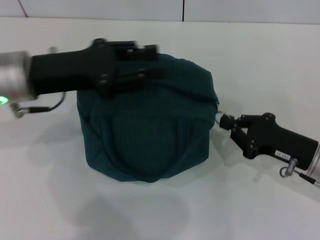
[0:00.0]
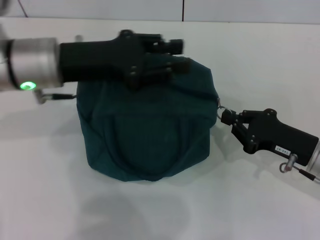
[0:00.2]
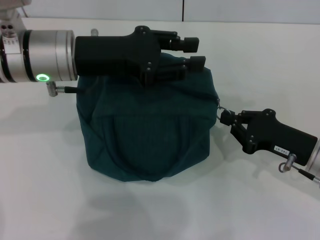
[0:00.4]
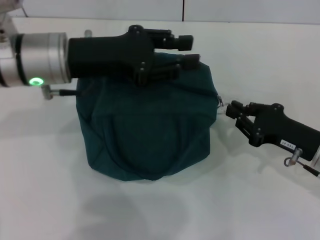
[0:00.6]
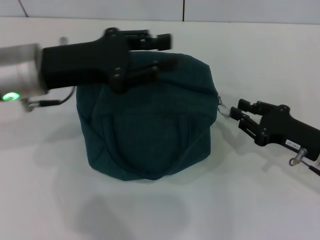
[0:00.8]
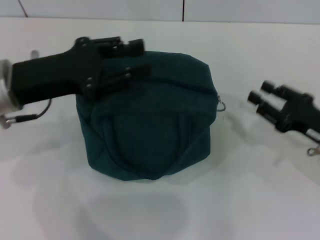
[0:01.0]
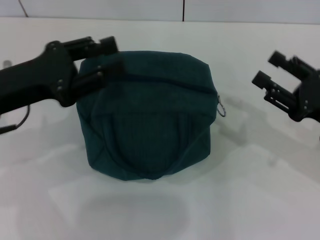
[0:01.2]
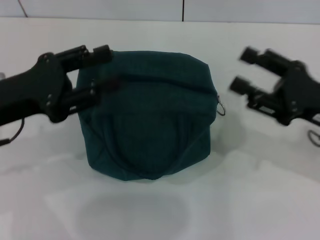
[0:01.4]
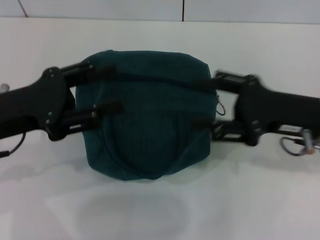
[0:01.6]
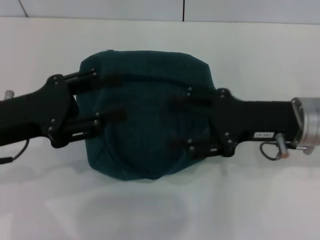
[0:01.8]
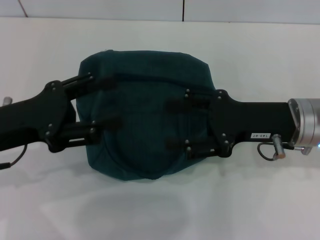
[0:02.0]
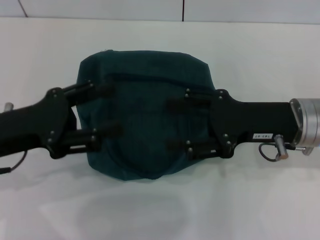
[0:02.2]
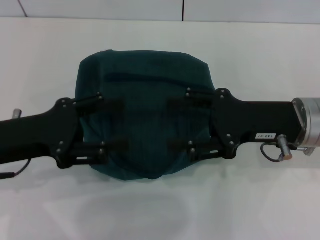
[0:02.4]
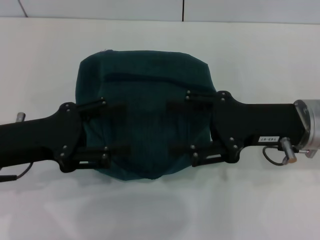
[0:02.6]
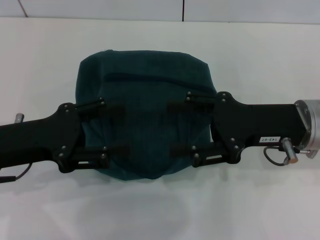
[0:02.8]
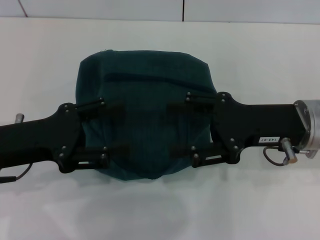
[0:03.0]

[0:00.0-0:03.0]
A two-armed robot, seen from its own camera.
Step, 0:00.0 to 0:00.8: Zip up the lunch bag with your right hand.
0:00.0 to 0:01.6: The left gripper heads backward, covering roughly 5 cm. The right gripper is displaced upward by about 10 cm, and opens.
0:01.6 to 0:03.0: The left gripper opens.
